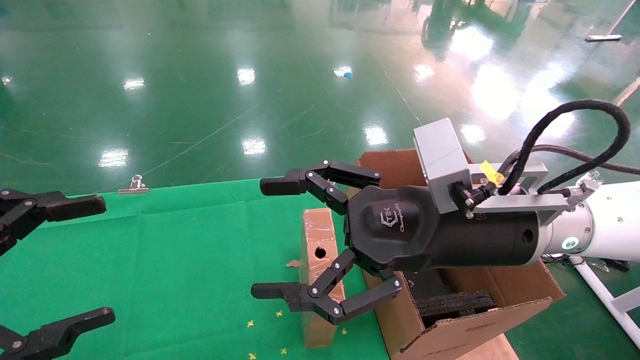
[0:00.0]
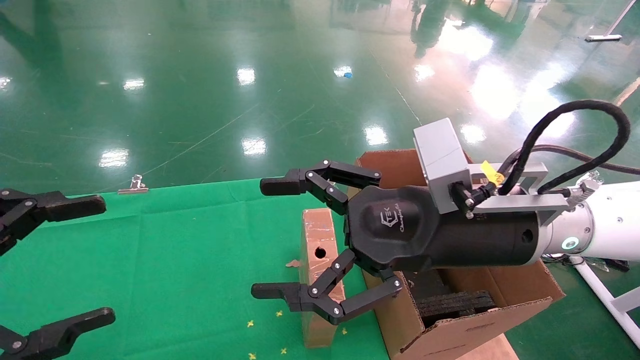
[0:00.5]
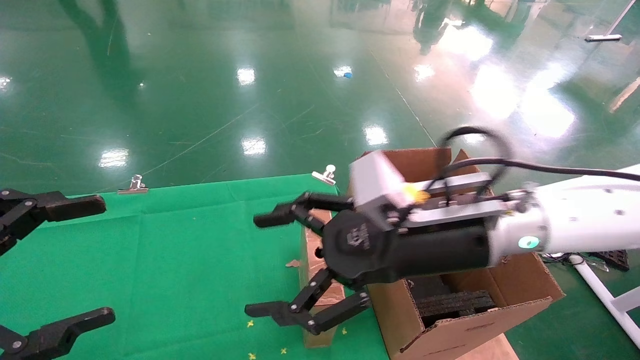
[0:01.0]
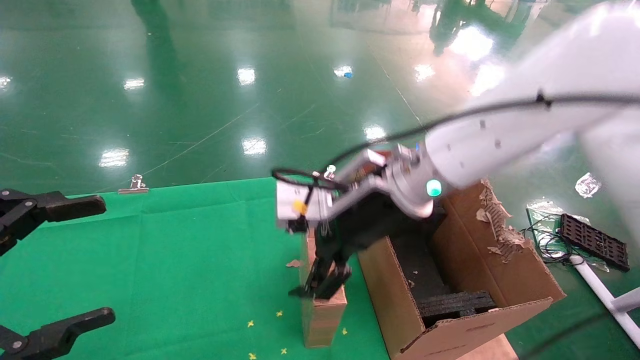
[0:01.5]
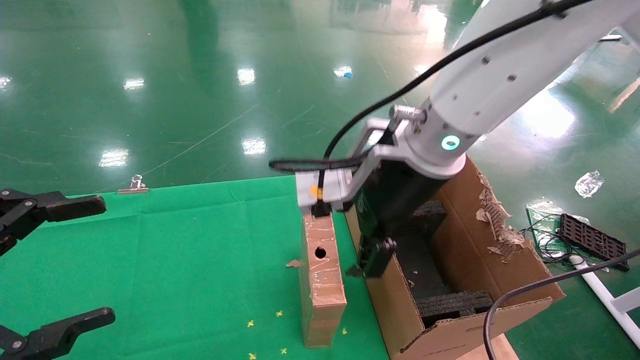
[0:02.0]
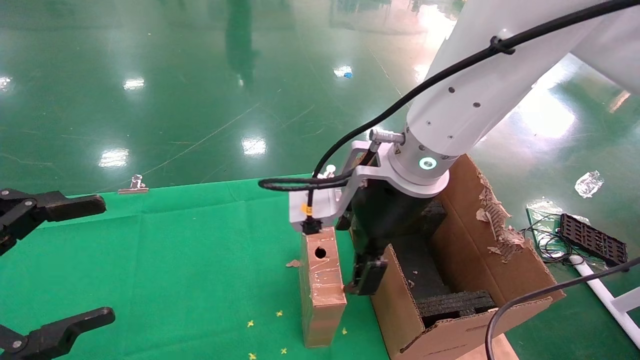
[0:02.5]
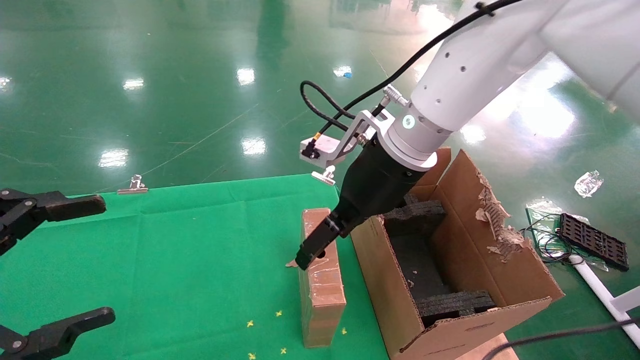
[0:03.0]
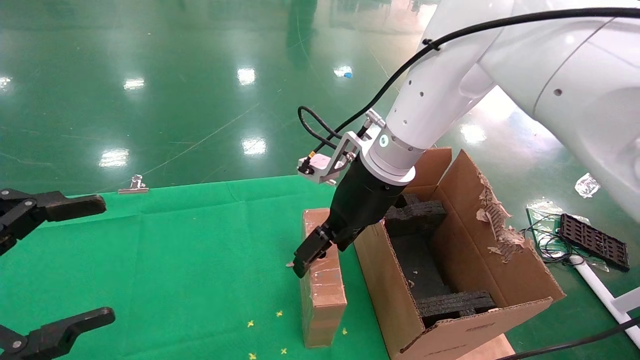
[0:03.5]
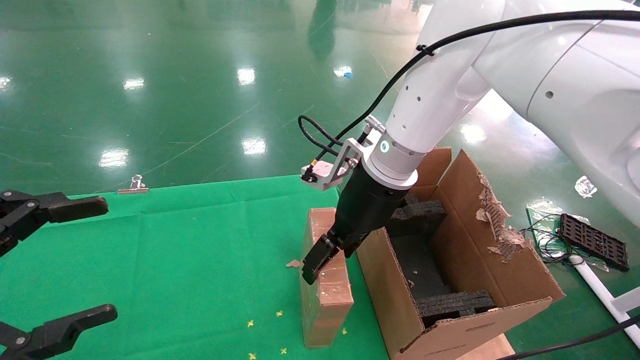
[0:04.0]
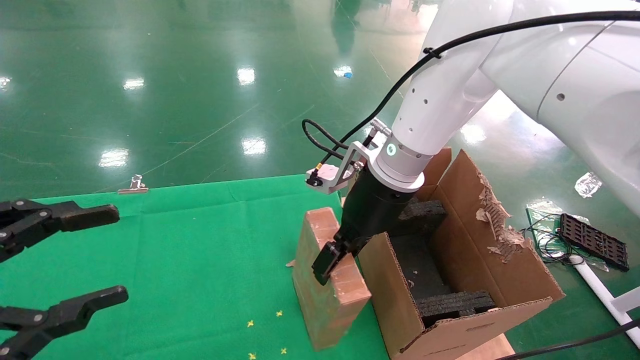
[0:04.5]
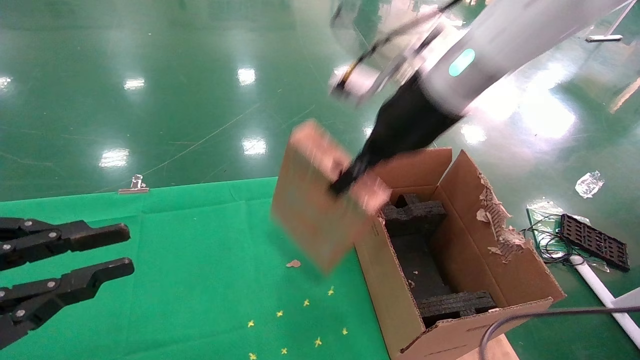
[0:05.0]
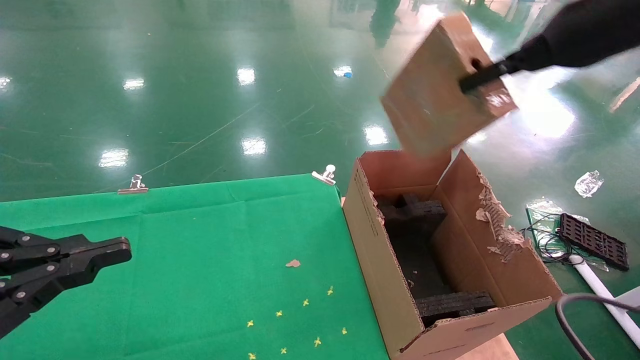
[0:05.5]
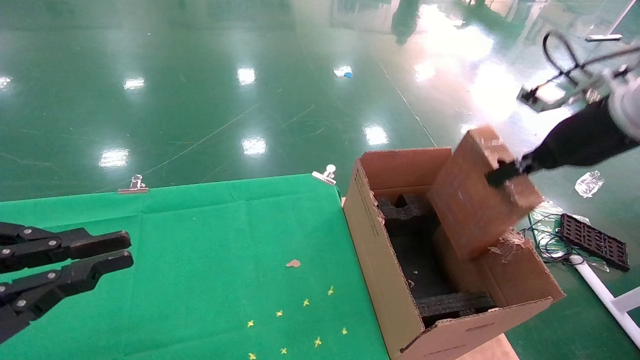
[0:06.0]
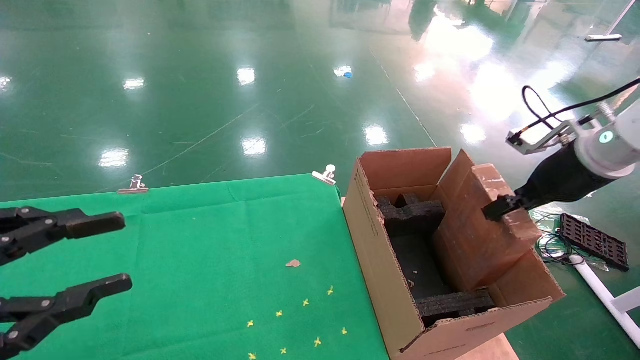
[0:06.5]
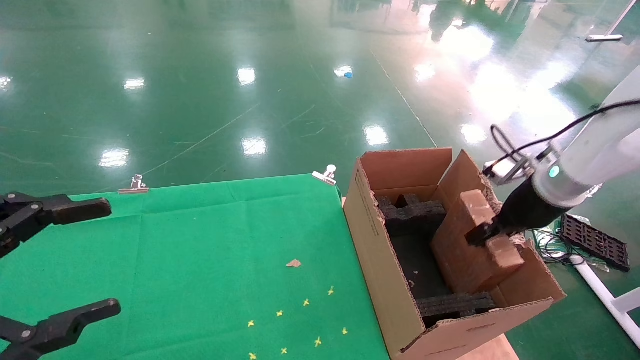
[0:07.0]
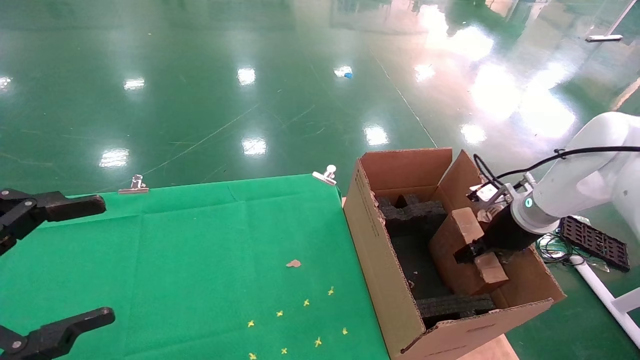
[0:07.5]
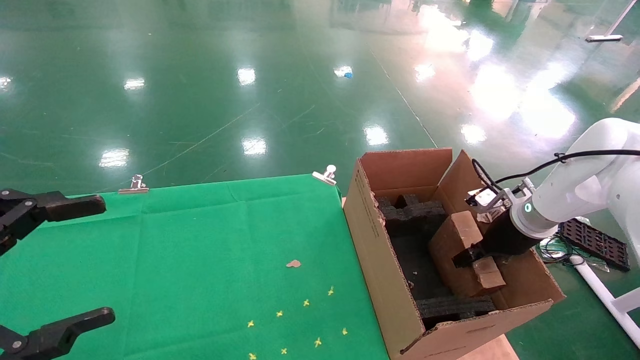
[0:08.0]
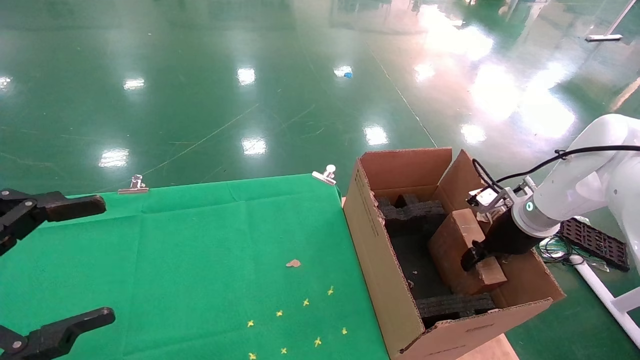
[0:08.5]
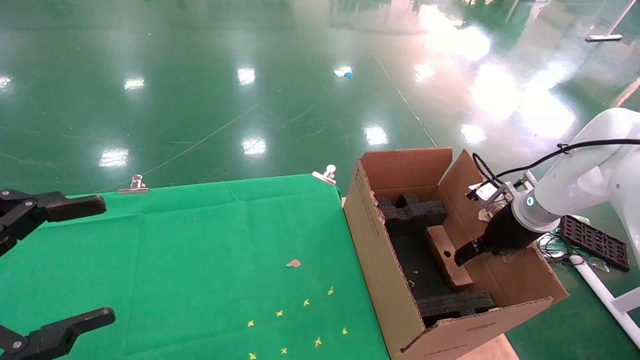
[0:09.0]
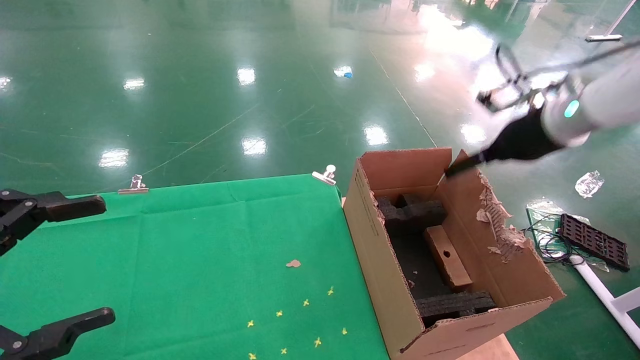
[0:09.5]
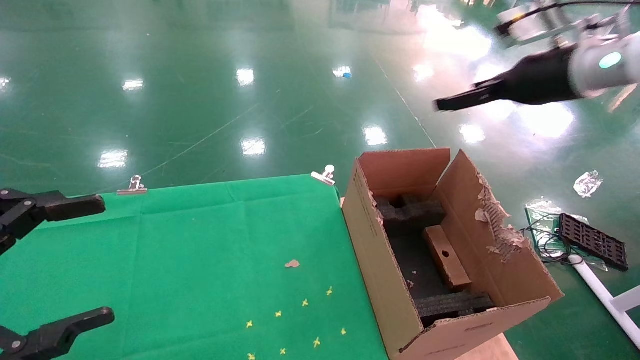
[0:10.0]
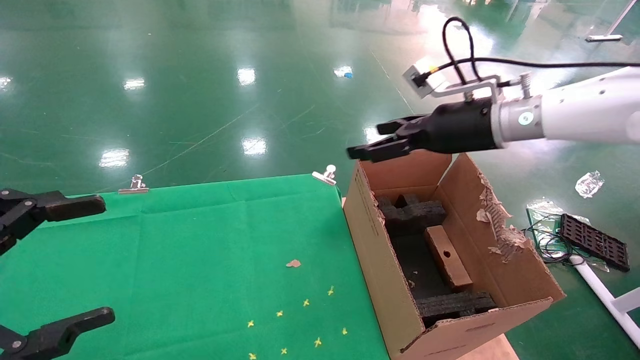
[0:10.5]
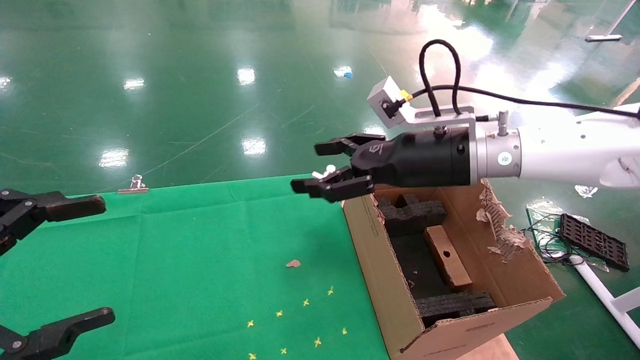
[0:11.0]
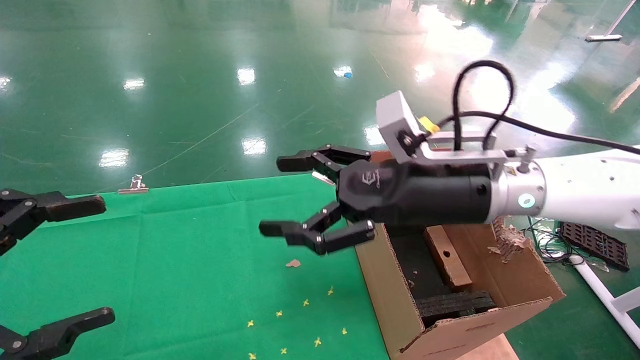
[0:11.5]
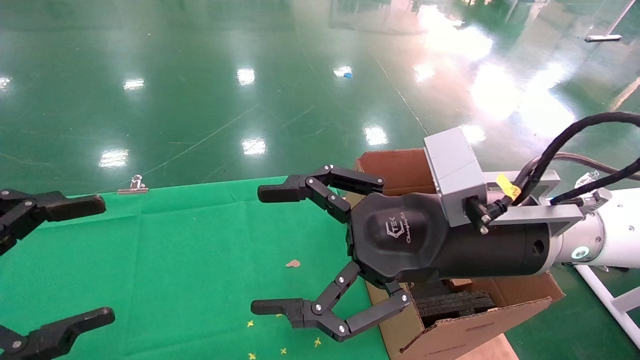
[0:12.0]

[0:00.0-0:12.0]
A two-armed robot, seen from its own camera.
Task of the whole recording: using a robotic arm to pick up a cardboard box and palace it the carton.
Step, 0:01.0 to 0:04.5: Pick up the mouse and the power cord paper box.
Step, 0:05.0 to 0:09.0: Place the mouse and the power cord paper box into the container.
0:00.0 to 0:02.0: The right gripper travels to the left, forward and upward by some 10 cm.
0:02.0 to 0:04.0: The right gripper travels forward by some 10 cm.
0:04.0 to 0:06.0: The left gripper closes up. The right gripper moves to the right, some 30 cm, and closes up.
0:06.0 to 0:08.0: The right gripper travels downward by some 20 cm. The left gripper opens its fingers.
0:08.0 to 0:10.0: The right gripper travels upward by approximately 20 cm, and opens up.
0:10.0 to 0:12.0: The right gripper heads to the left, backward and downward, covering approximately 25 cm.

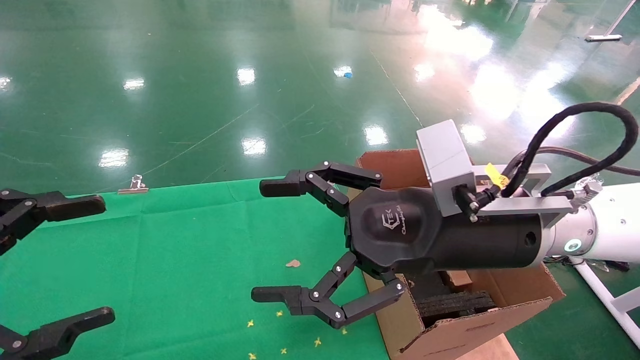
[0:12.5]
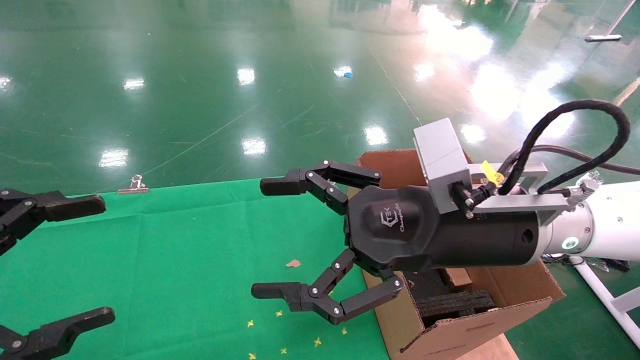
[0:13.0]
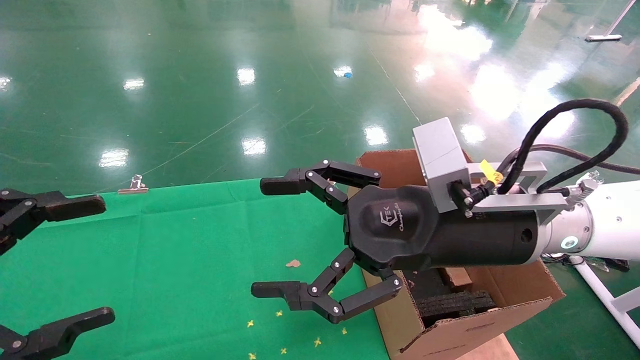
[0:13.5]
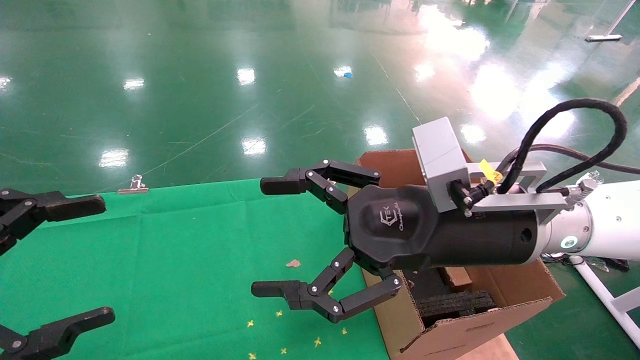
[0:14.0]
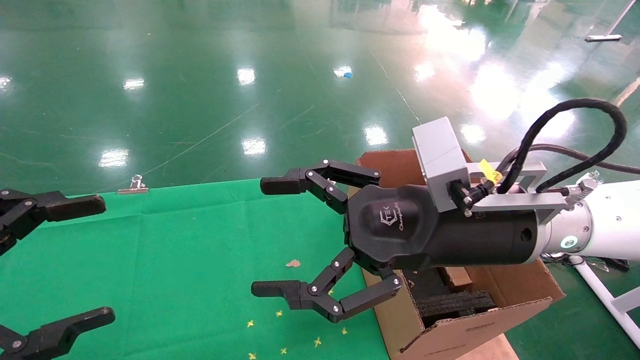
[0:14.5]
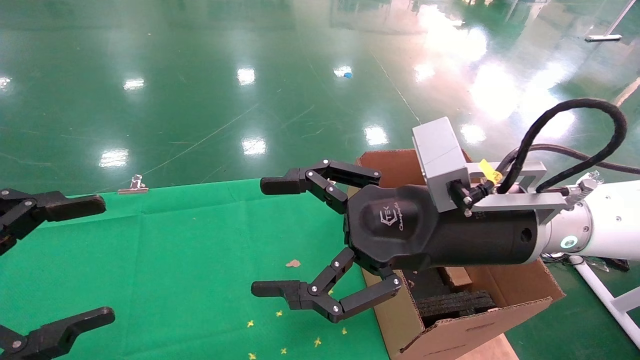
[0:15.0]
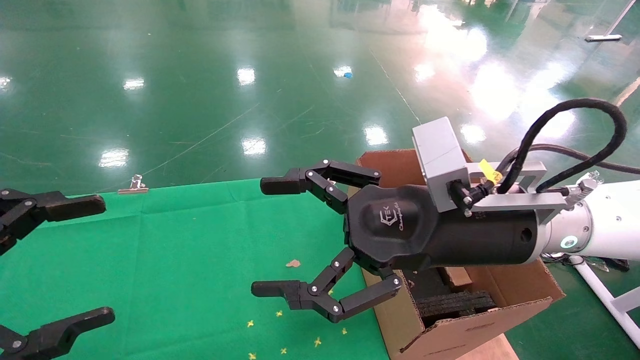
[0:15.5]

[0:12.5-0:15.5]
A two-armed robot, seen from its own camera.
Task of the whole recording: using a robotic arm to pick up a cardboard box and palace it the carton.
0:12.5 to 0:15.5: Neither gripper changes place.
